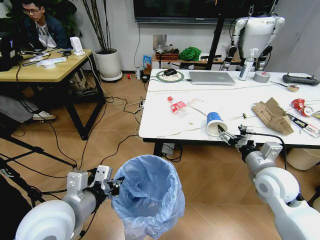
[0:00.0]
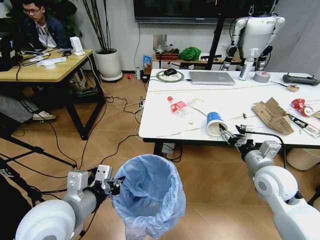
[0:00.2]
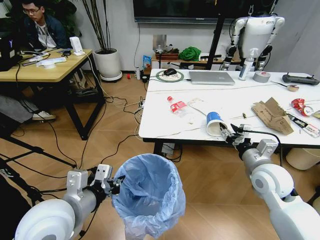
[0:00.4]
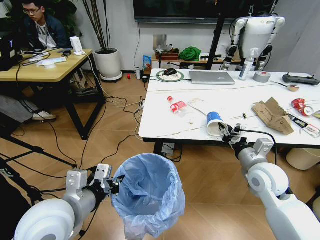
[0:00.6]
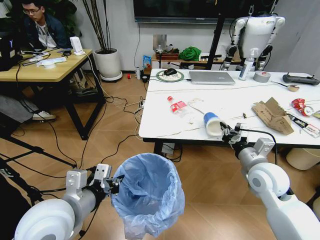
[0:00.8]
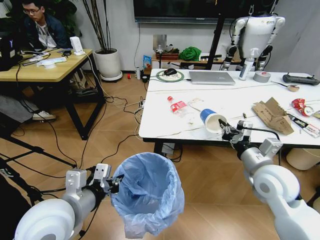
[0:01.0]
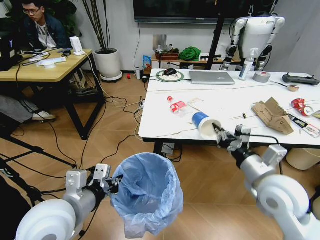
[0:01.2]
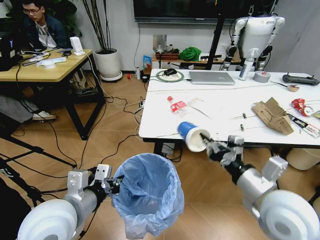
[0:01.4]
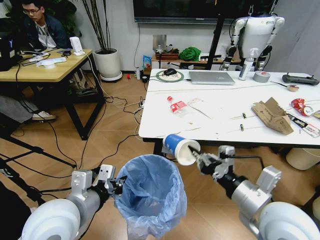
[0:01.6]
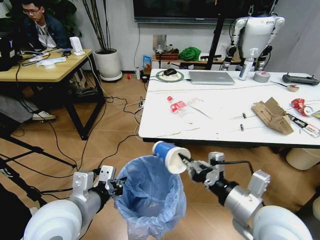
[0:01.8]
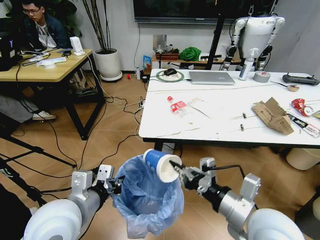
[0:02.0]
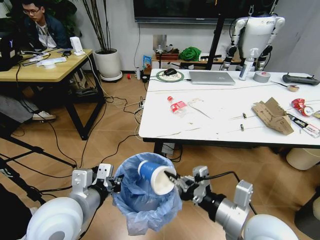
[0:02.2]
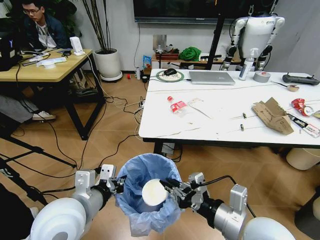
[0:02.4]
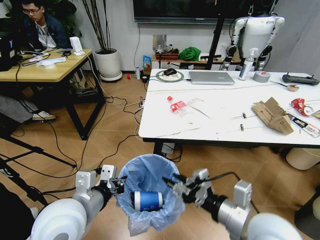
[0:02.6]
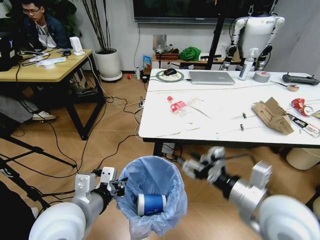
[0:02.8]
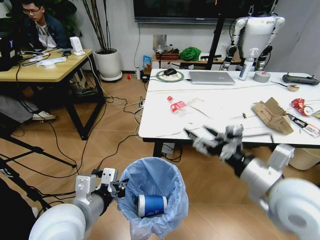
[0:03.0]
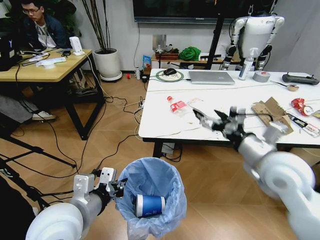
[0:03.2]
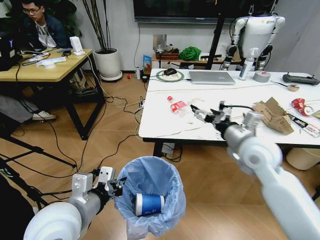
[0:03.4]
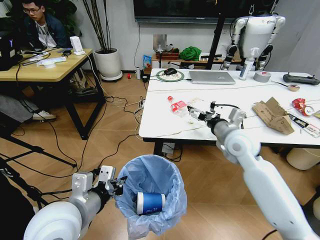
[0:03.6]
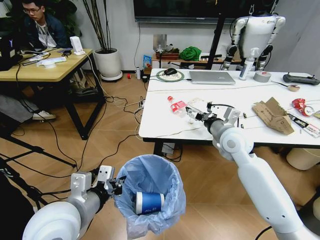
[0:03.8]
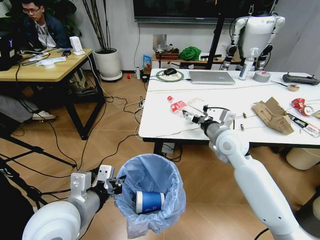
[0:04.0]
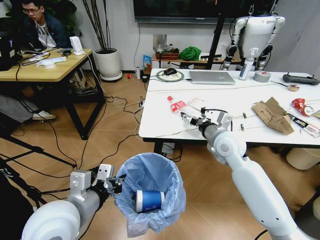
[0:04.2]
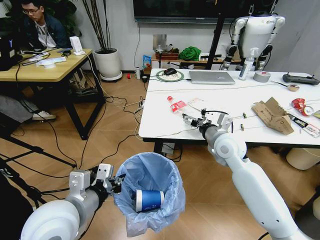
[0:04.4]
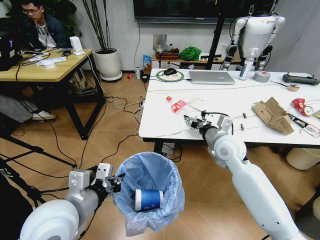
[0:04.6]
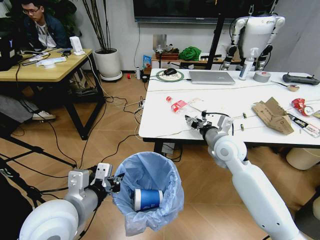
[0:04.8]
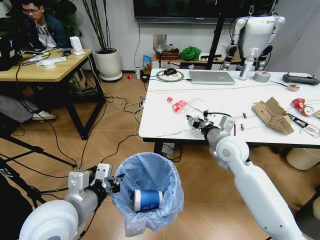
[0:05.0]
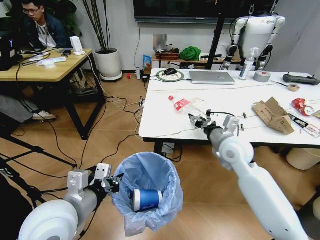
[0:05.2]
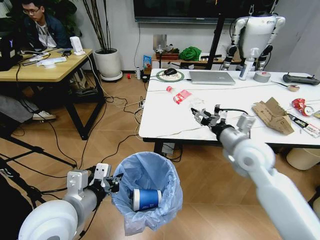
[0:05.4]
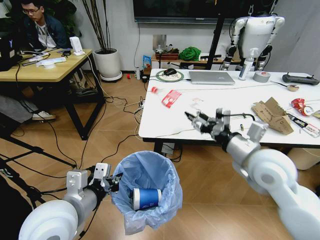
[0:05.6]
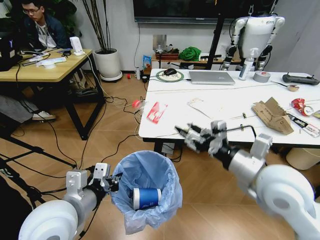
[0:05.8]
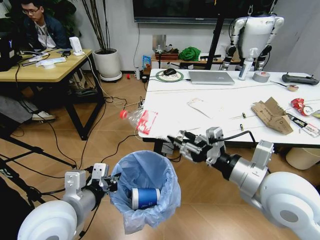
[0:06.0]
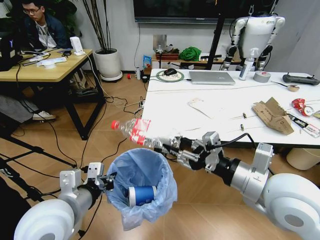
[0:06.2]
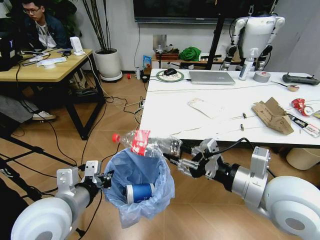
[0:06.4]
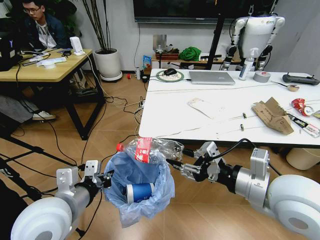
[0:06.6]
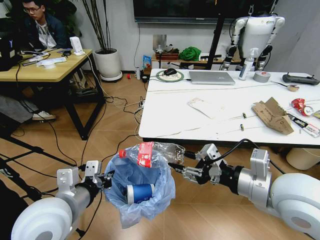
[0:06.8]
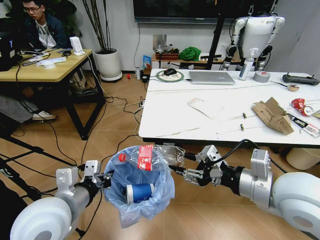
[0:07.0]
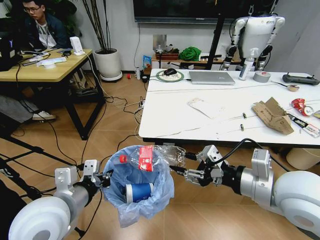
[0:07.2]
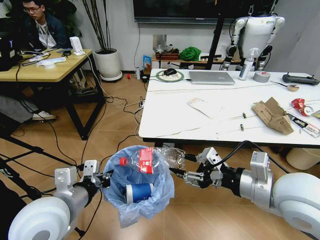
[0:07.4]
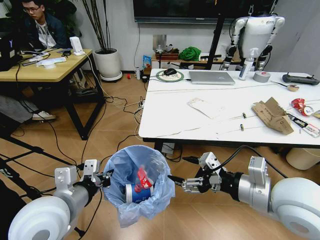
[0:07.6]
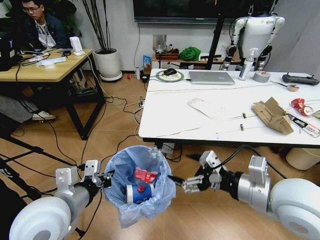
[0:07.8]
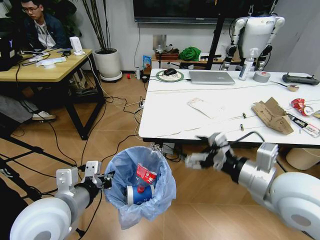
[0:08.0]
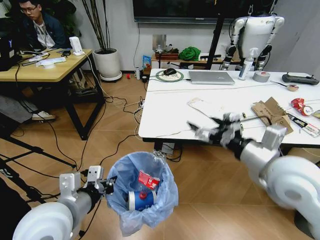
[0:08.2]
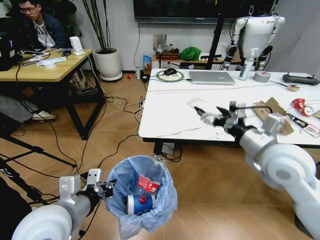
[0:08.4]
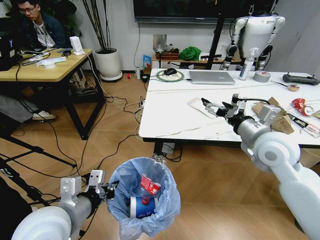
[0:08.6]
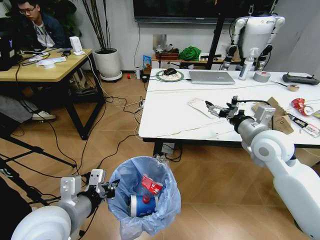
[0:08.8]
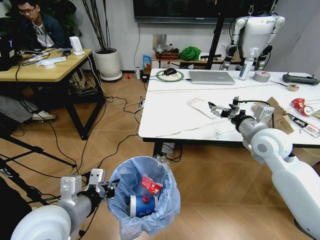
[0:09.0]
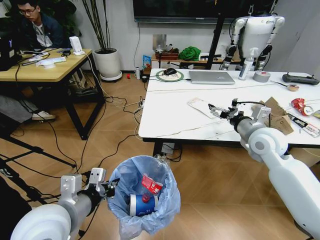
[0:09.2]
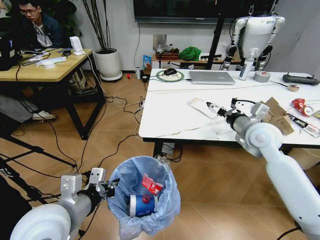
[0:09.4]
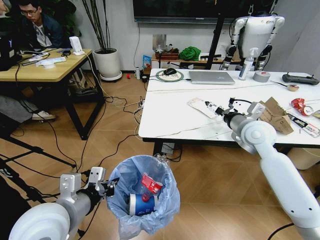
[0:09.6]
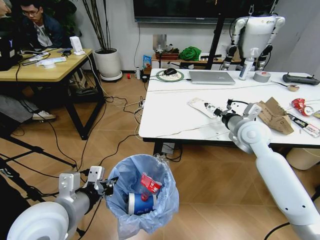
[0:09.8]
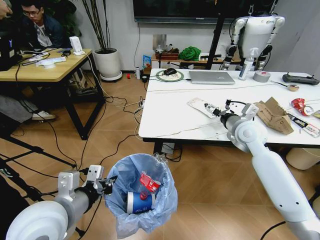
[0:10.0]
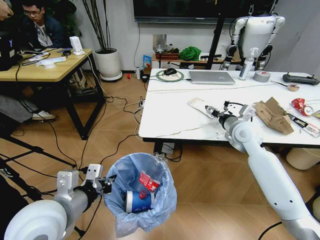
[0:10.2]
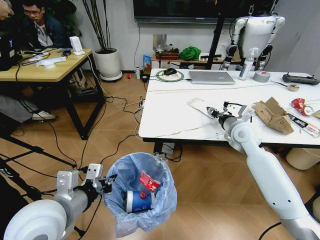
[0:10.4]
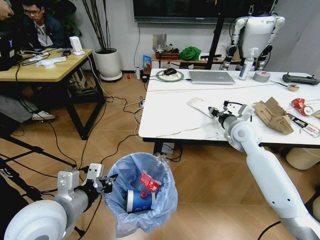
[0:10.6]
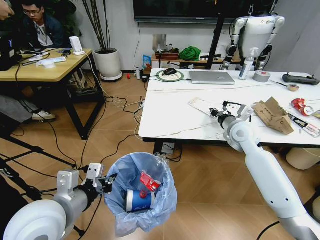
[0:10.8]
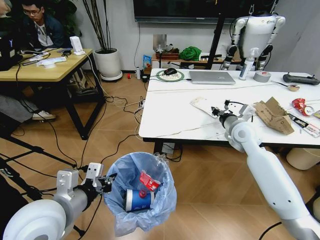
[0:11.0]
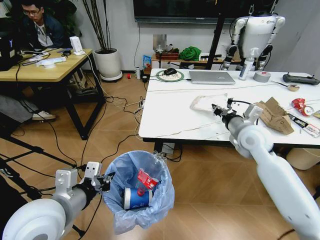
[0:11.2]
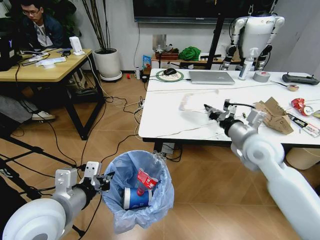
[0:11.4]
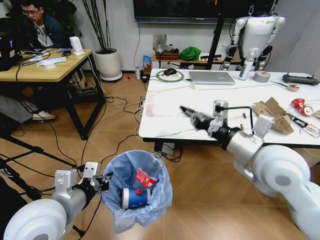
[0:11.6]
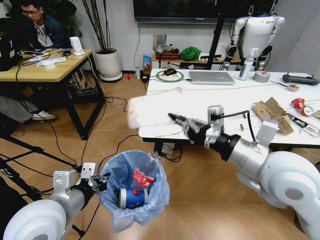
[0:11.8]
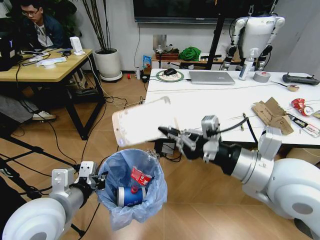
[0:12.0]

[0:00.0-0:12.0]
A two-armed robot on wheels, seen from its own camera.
Task of the whole recording: Pick up the trash bin and place the trash from the table into it.
0:00.0 to 0:01.6: The right gripper is displaced backward, to the left and upward by roughly 15 cm, and closes up.
0:01.6 to 0:03.0: The right gripper moves approximately 5 cm, and opens.
0:03.0 to 0:04.4: The right gripper is displaced forward by some 20 cm.
0:04.4 to 0:06.0: The right gripper moves backward and upward, approximately 20 cm, and closes.
0:07.6 to 0:09.0: The right gripper travels forward by about 15 cm.
0:09.0 to 0:10.4: The right gripper travels forward by about 5 cm, and closes its fingers.
0:10.4 to 0:12.0: The right gripper shifts roughly 25 cm backward and upward, and closes up.

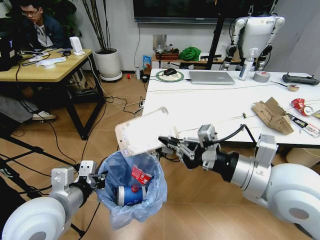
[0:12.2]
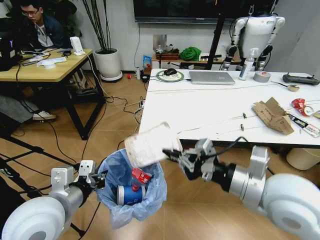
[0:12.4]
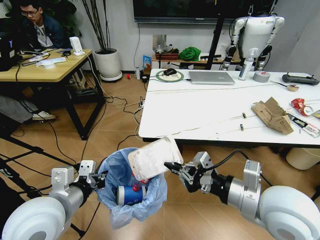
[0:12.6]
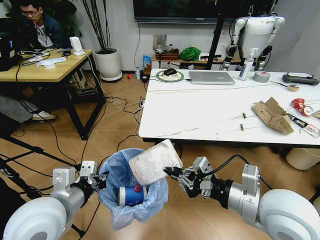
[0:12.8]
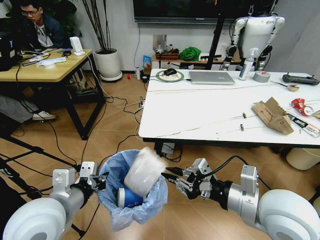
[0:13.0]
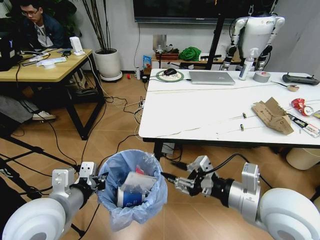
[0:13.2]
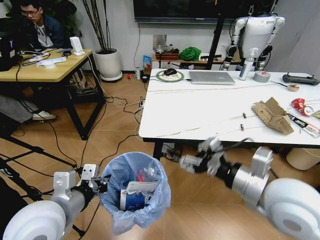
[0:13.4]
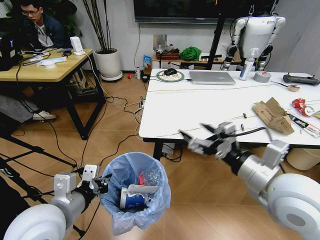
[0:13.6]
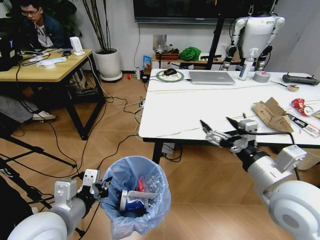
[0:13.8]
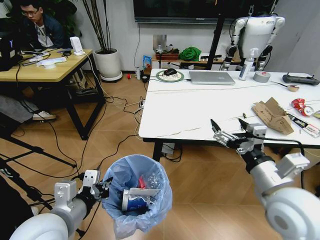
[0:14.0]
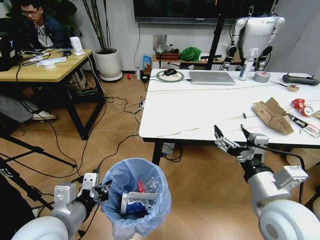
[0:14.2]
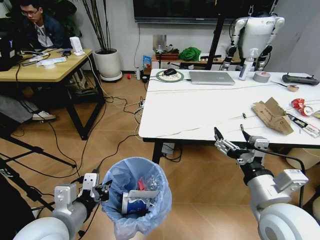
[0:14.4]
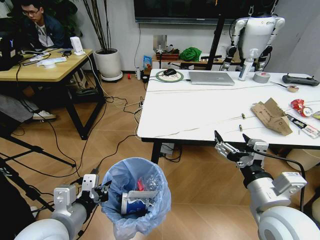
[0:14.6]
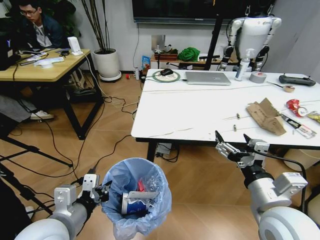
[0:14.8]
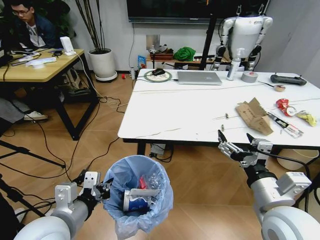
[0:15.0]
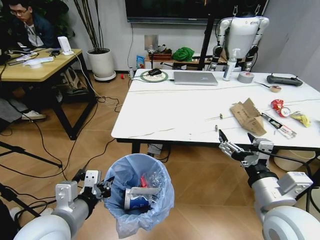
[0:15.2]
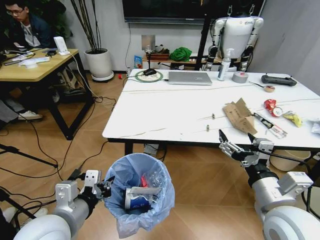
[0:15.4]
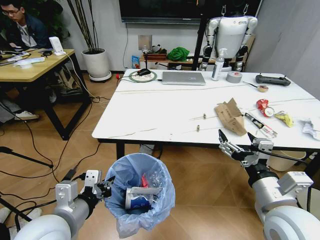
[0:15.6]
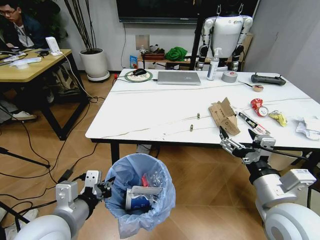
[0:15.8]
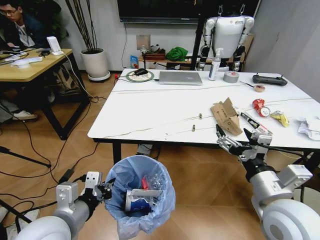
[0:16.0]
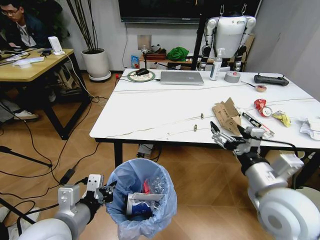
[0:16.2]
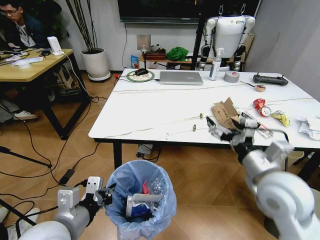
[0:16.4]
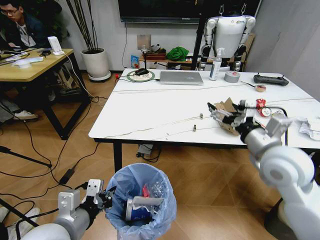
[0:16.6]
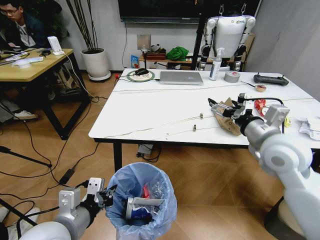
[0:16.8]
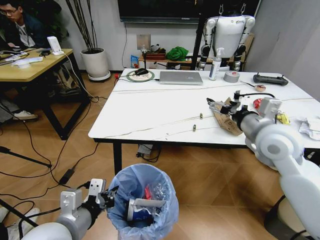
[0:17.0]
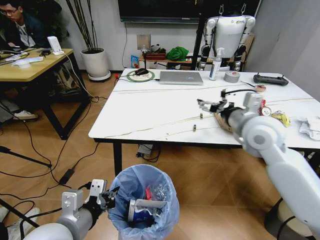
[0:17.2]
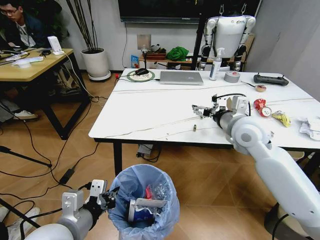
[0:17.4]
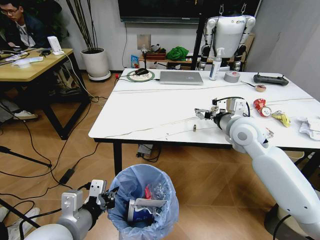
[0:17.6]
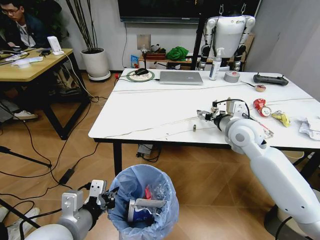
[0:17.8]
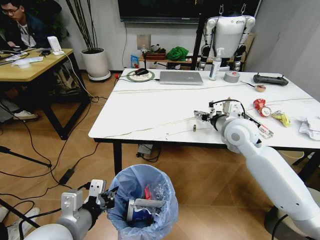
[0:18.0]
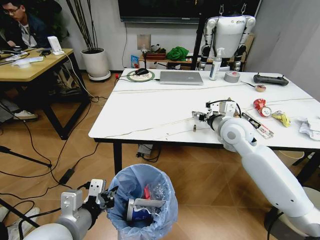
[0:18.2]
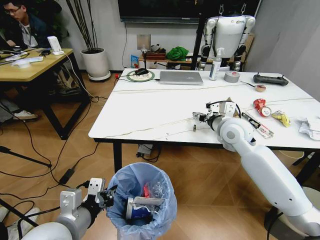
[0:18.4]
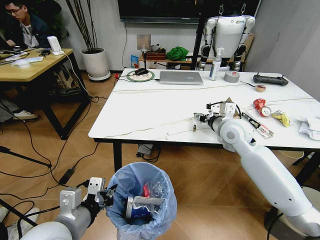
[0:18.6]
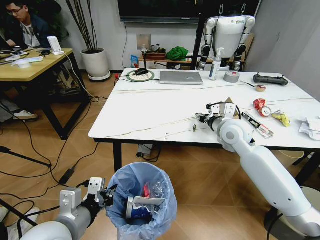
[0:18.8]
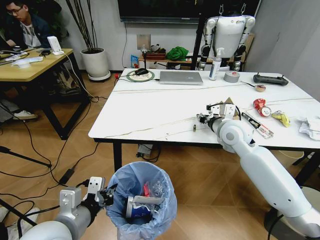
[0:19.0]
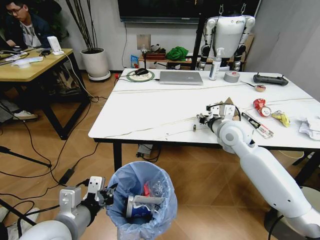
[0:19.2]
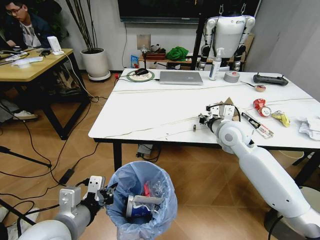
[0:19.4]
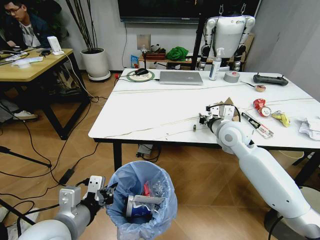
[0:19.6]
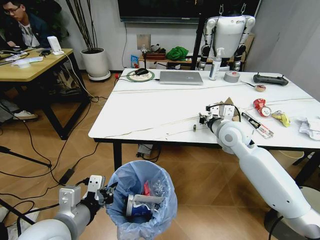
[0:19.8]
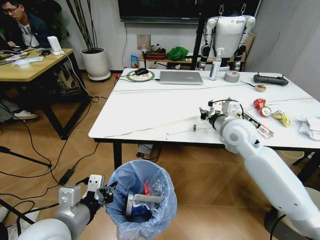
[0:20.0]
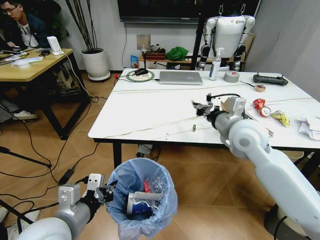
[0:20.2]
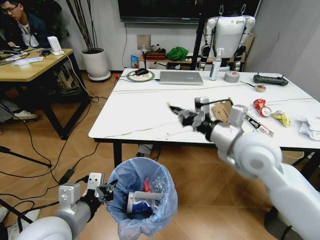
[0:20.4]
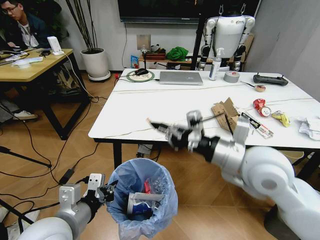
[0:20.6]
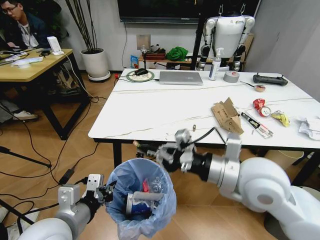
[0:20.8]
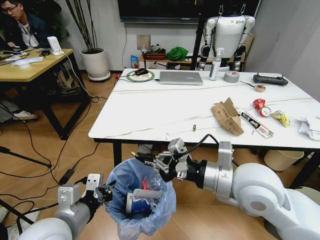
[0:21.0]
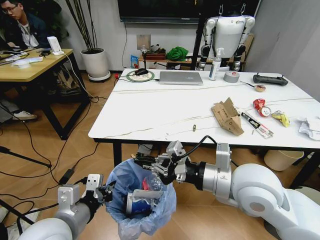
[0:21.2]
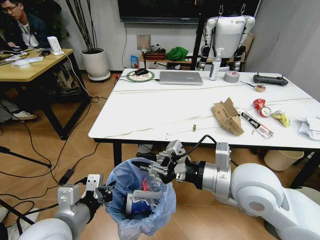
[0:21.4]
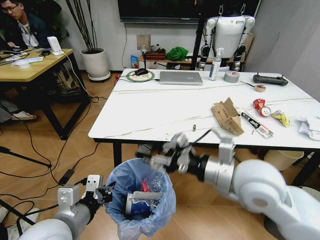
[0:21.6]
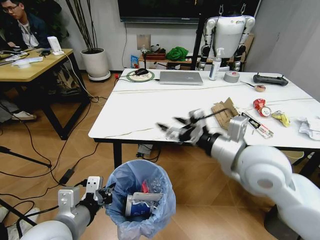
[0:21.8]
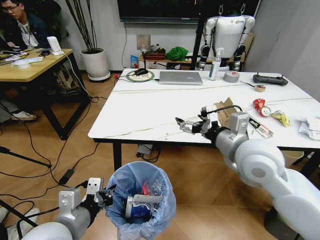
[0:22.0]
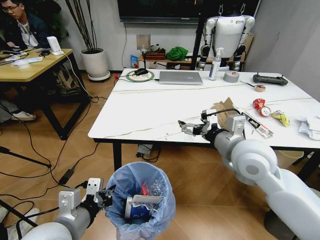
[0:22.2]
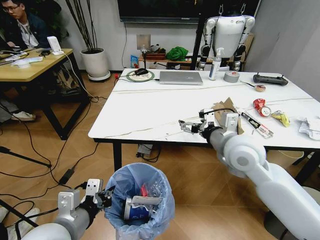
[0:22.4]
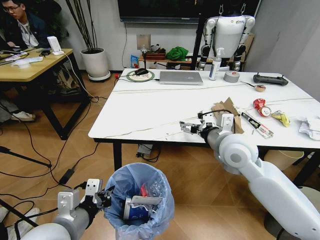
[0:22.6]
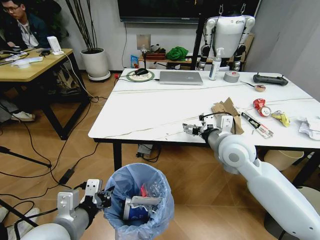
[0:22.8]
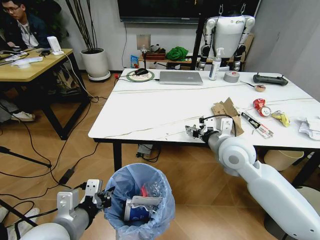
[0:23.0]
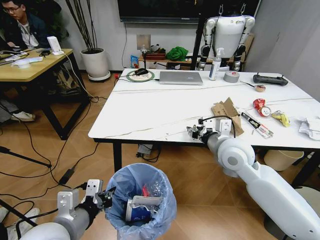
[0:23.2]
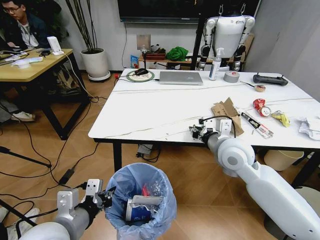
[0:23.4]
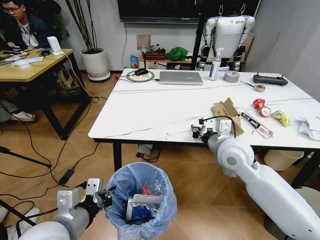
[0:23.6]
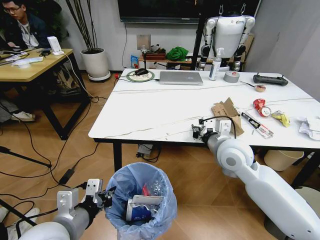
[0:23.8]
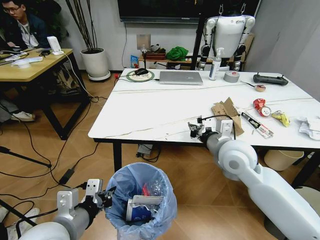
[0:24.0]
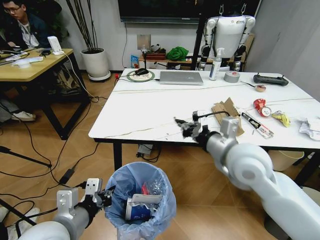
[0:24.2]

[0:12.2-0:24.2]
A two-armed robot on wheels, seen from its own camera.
Task of the whole recording: Pick up the trash bin and place the trash from the table into it.
0:12.2 to 0:13.8: The right gripper moves roughly 5 cm, and opens up.
0:13.8 to 0:15.2: The right gripper ends up some 5 cm from where it was.
0:15.2 to 0:16.6: The right gripper moves forward, about 10 cm.
0:16.6 to 0:18.2: The right gripper shifts about 15 cm forward.
0:18.2 to 0:19.8: The right gripper closes its fingers.
0:19.8 to 0:21.2: The right gripper travels backward by approximately 20 cm.
0:21.2 to 0:22.6: The right gripper goes roughly 10 cm forward, and opens its fingers.
0:22.6 to 0:24.2: The right gripper shifts about 5 cm backward, and closes.
